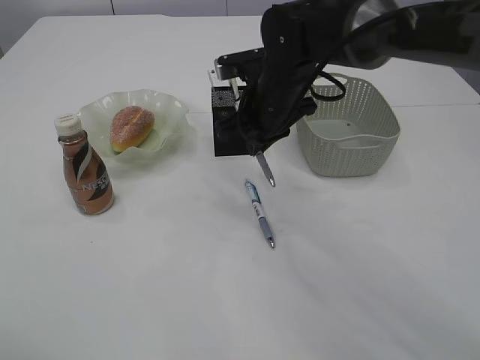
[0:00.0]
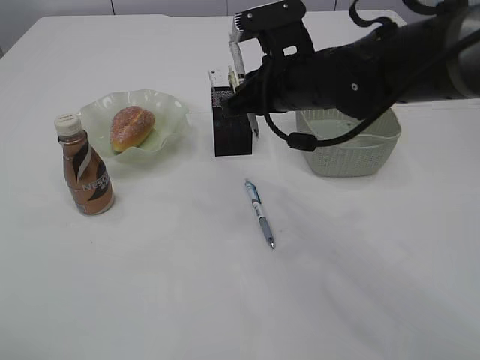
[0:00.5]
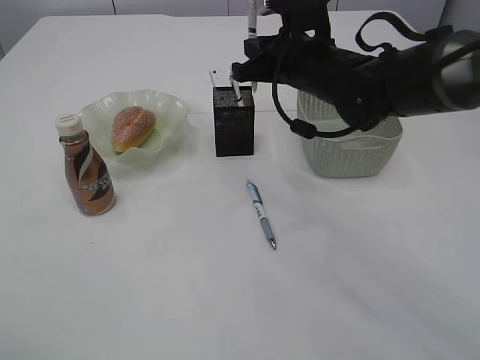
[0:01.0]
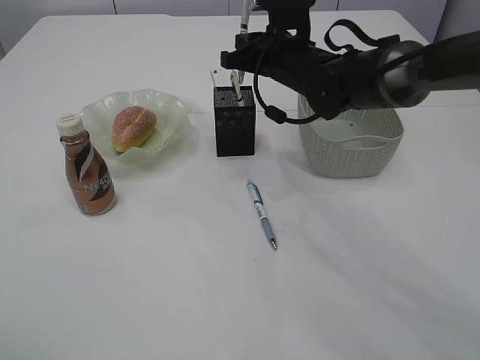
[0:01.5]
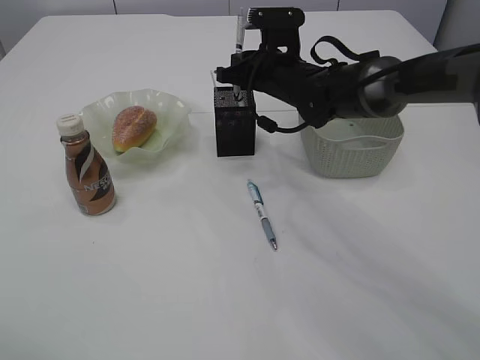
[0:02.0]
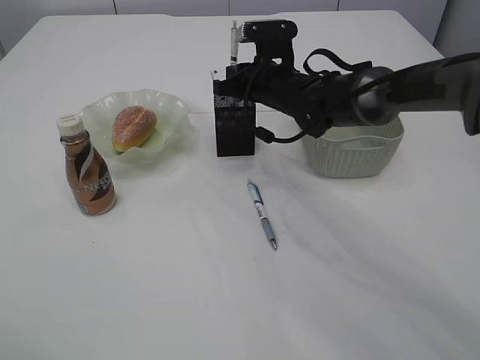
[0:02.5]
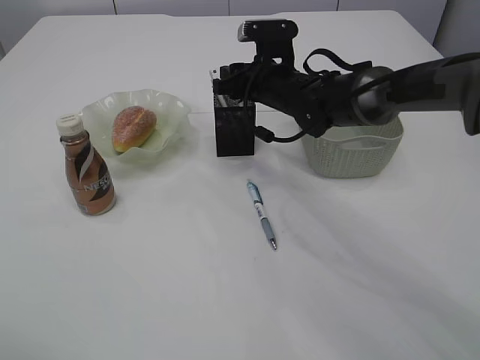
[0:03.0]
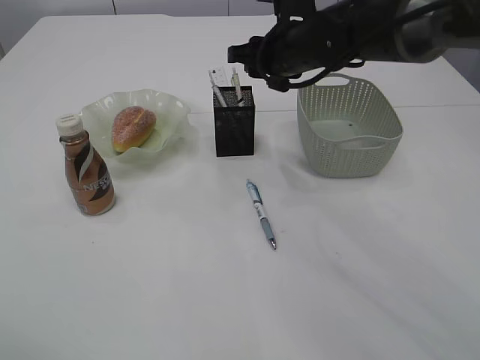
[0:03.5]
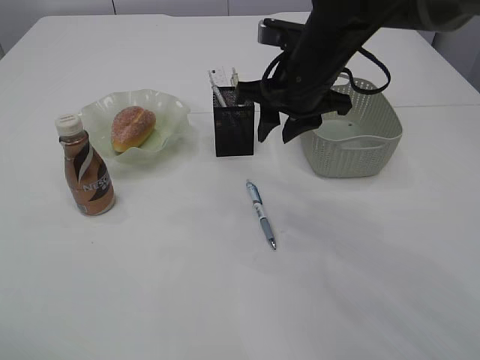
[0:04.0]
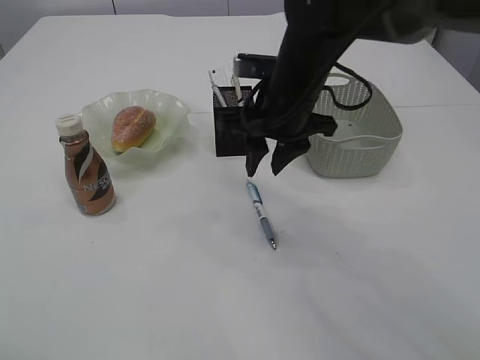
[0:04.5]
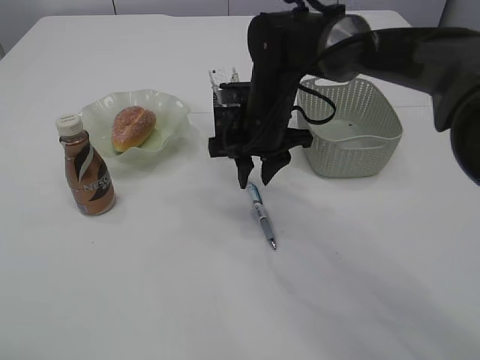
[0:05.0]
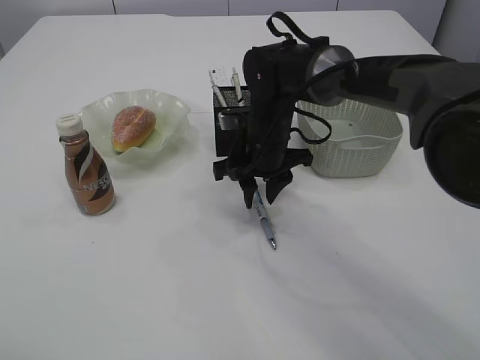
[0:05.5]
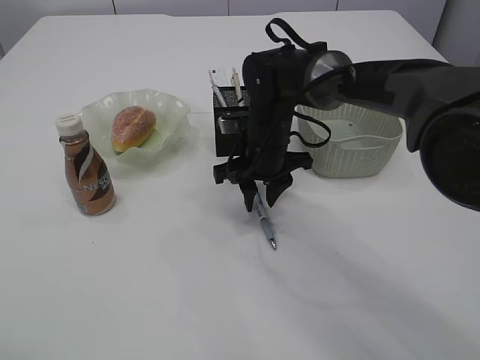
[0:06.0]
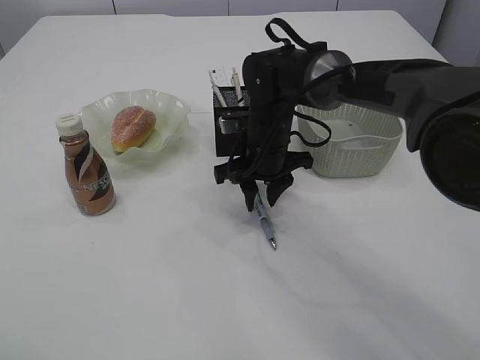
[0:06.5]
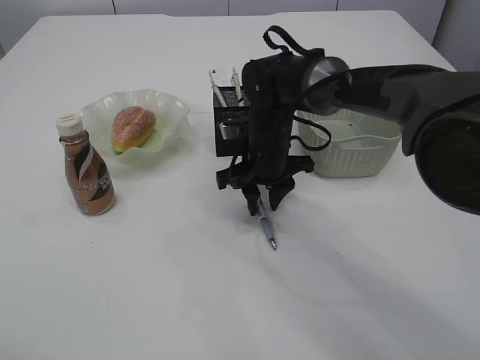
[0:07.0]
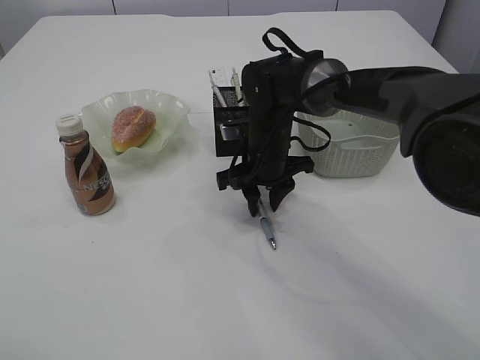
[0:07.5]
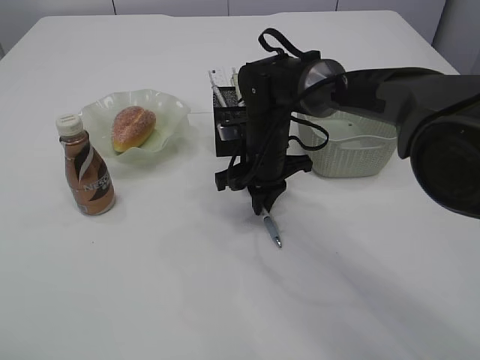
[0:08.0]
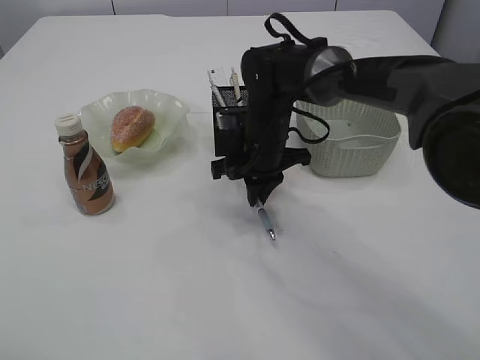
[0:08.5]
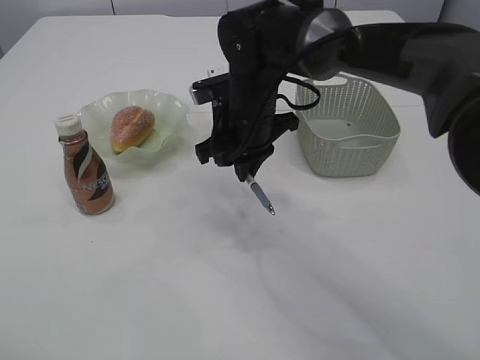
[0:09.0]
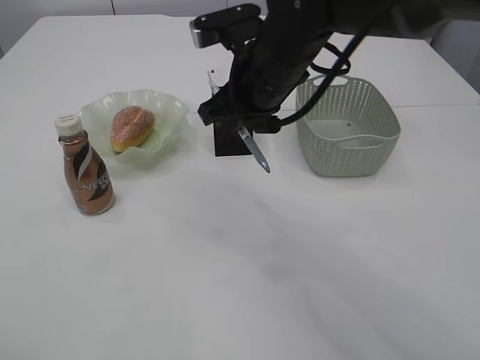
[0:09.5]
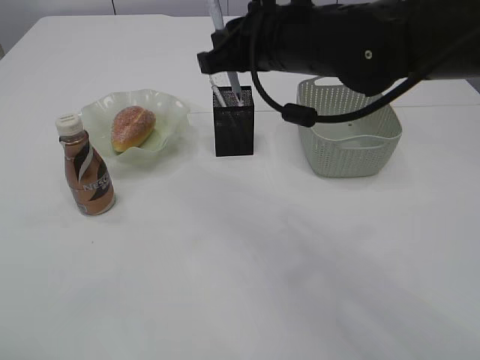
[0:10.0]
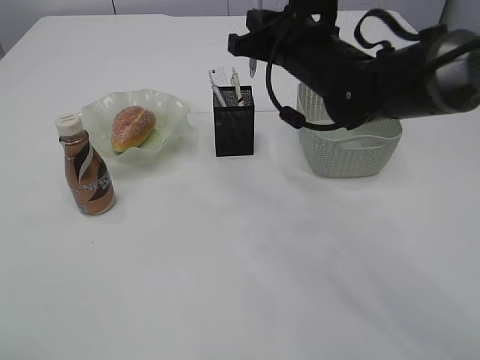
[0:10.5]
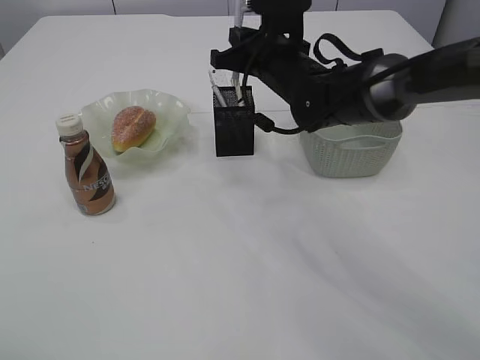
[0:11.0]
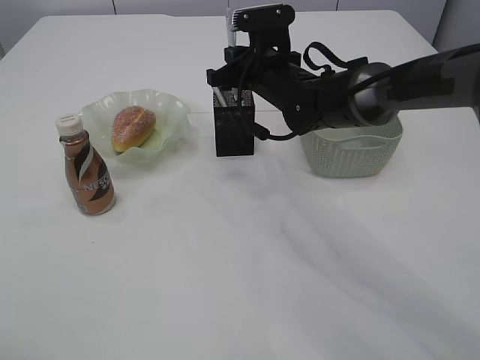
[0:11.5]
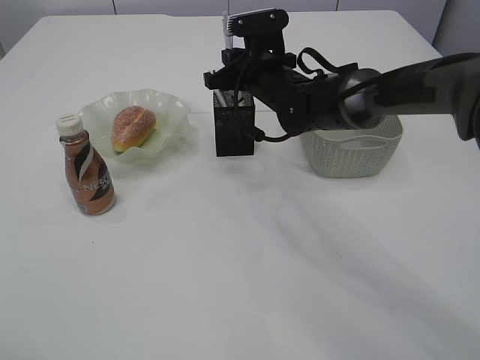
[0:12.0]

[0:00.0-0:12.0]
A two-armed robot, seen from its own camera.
Step, 0:00.0 to 0:03.0: Place the pen into the pen holder.
Step, 0:03.5 to 0:08.5: Pick up the pen with right arm.
0:00.0 to 0:02.0: The right gripper heads forward, covering about 5 cm.
0:02.0 to 0:04.0: The right gripper is displaced backward and upward by about 10 cm, and opens up.
0:04.0 to 0:06.0: The right gripper shifts roughly 10 cm downward.
0:06.0 to 0:08.0: The right gripper closes up.
0:08.0 to 0:10.0: The right gripper moves upward and backward, some 20 cm.
0:10.0 to 0:12.0: The right gripper heads forward and downward, covering approximately 15 cm.

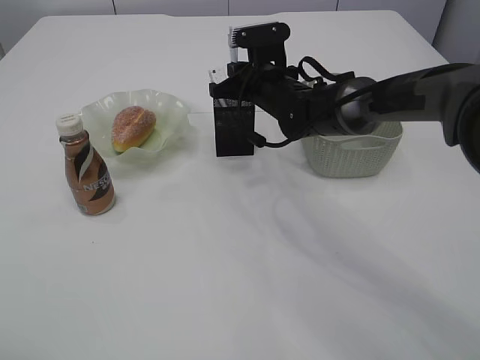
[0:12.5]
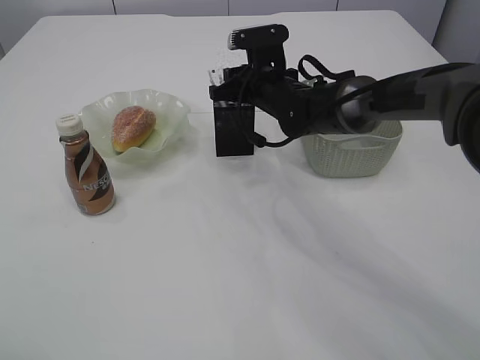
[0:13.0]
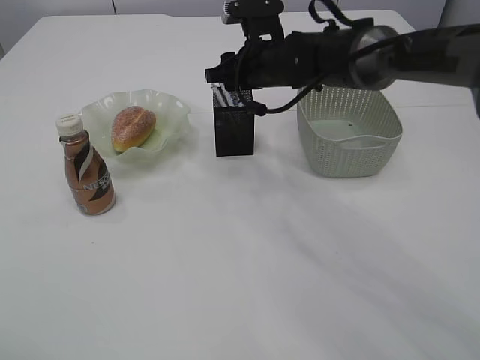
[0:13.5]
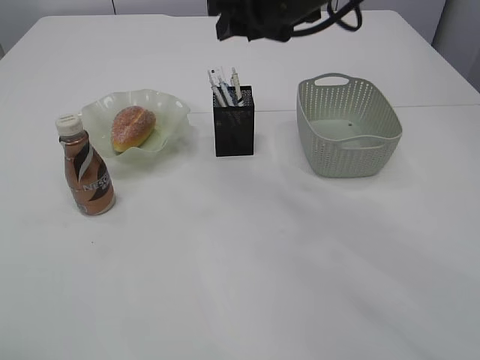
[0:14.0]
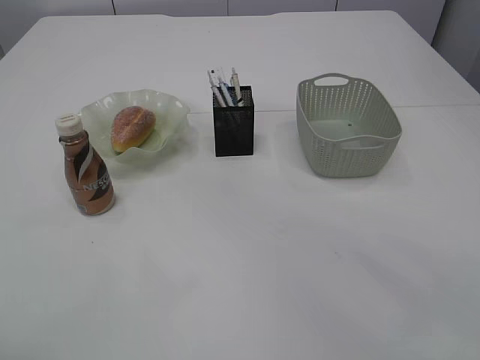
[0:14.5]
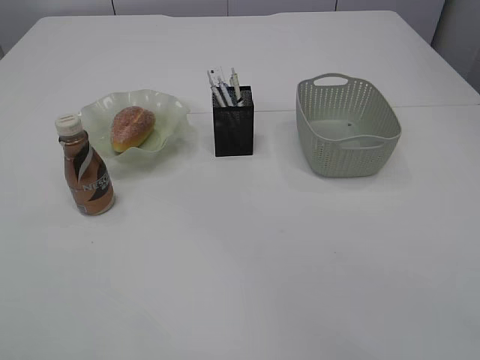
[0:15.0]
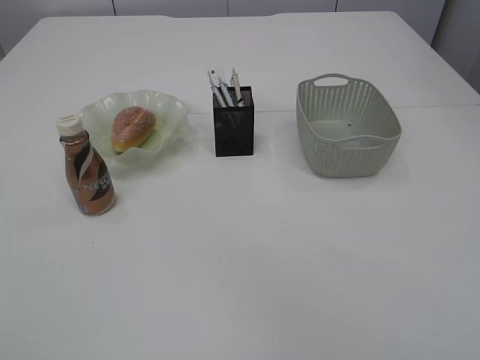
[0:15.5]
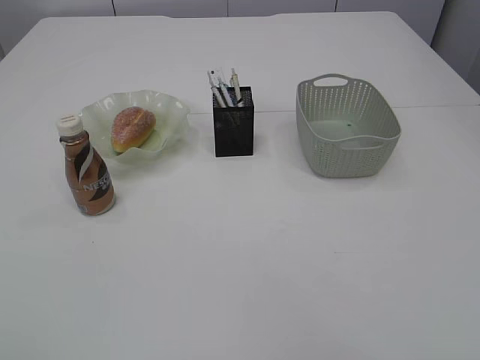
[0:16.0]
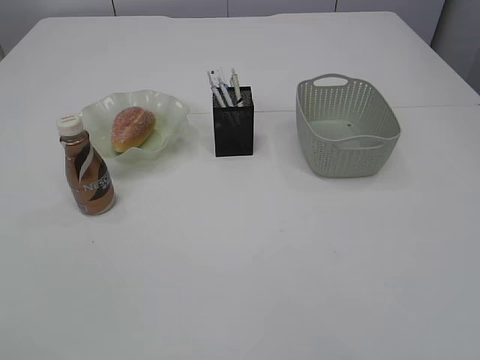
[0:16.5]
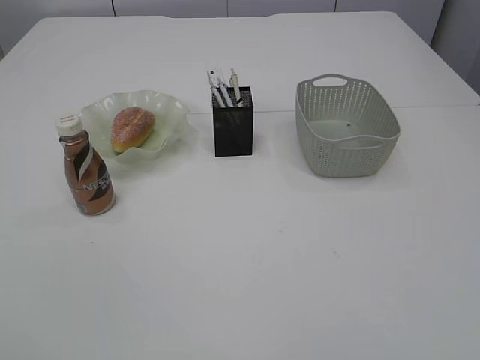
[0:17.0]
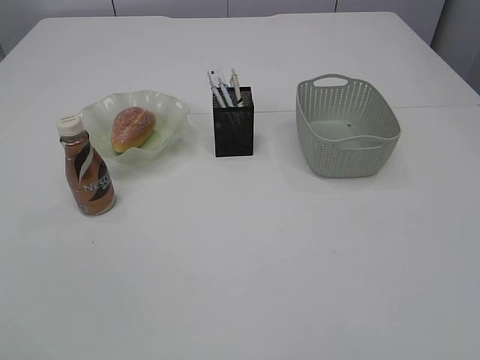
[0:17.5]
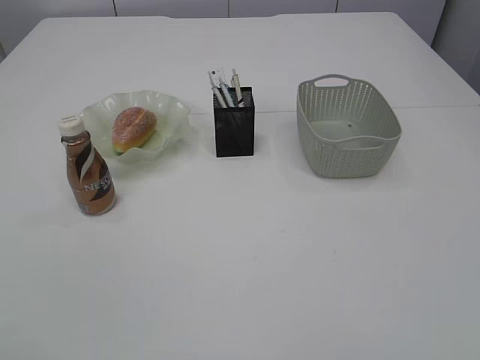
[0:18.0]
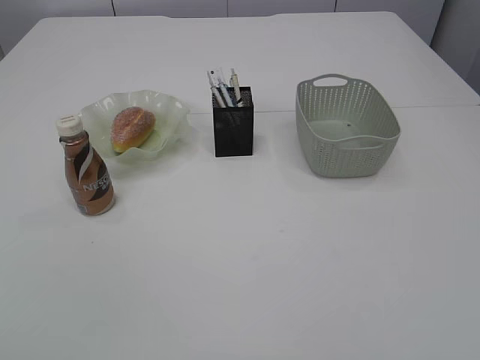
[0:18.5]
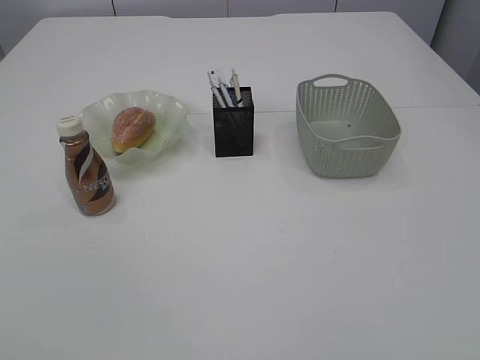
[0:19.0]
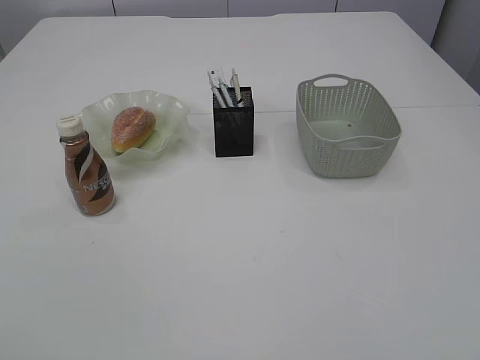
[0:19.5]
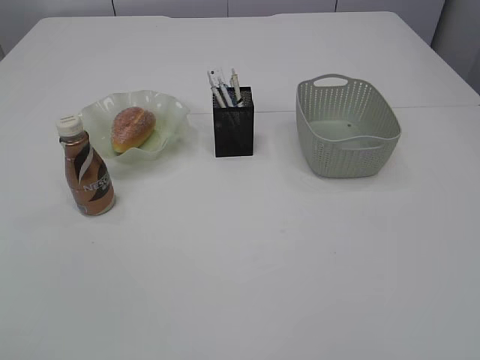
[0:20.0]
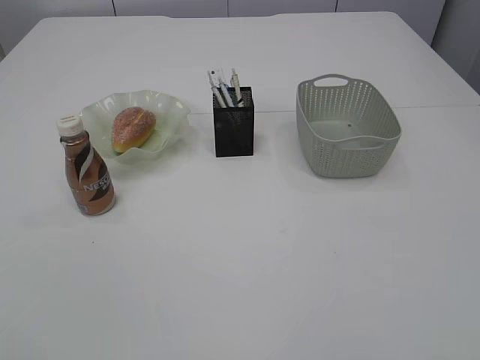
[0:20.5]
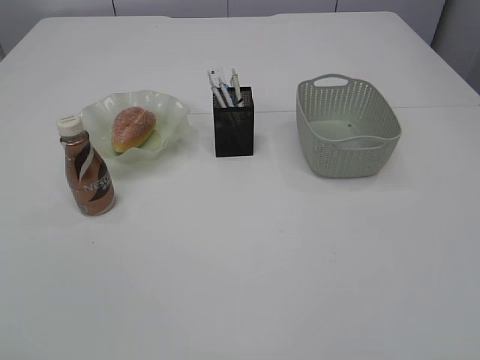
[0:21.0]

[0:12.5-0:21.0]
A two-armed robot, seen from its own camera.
0:12.5 to 0:14.5: The right gripper heads upward and backward, covering some 30 cm, and opens up. The left gripper opens.

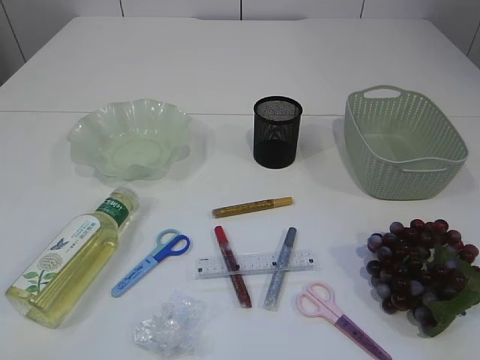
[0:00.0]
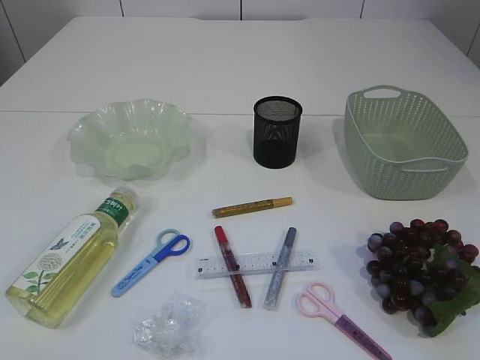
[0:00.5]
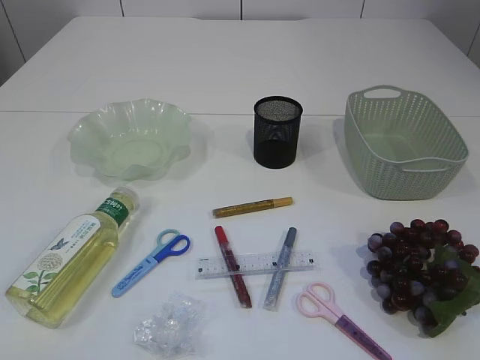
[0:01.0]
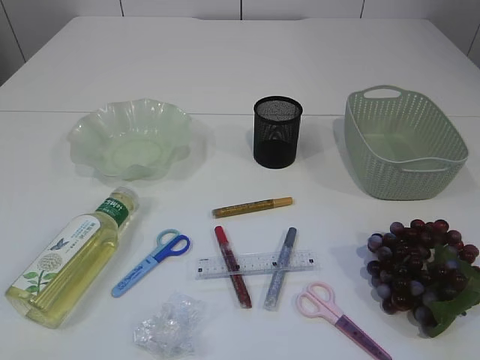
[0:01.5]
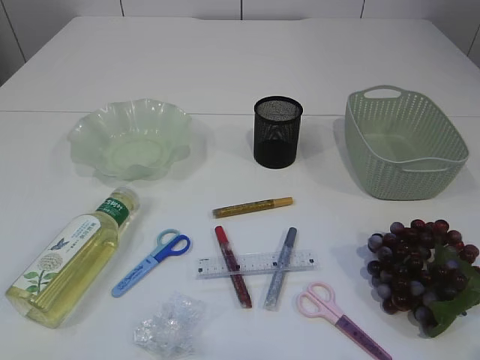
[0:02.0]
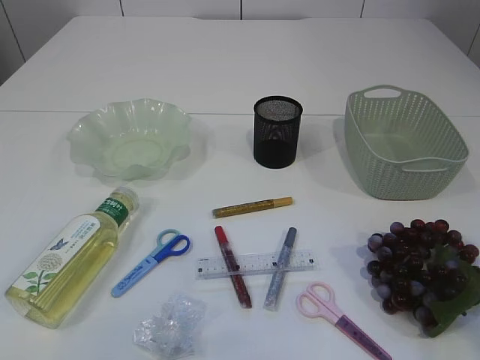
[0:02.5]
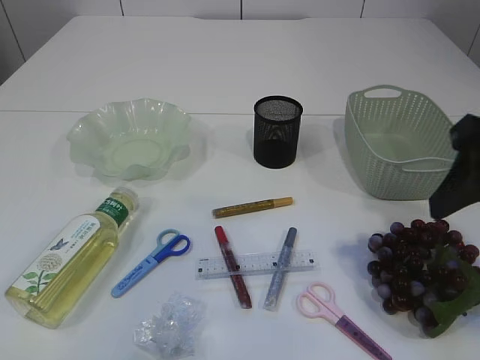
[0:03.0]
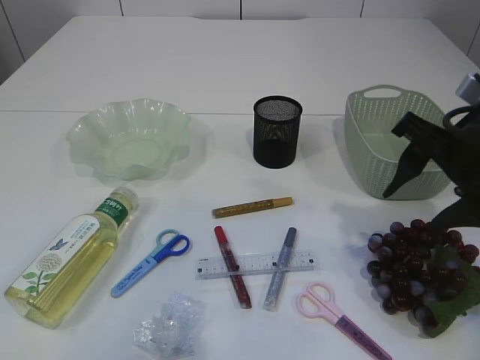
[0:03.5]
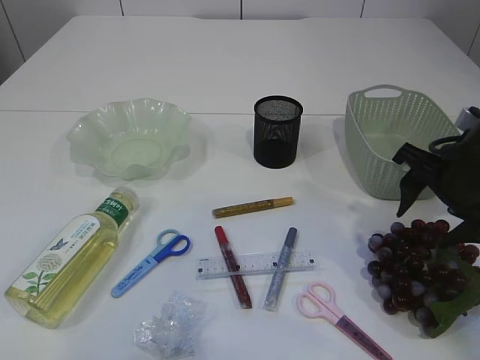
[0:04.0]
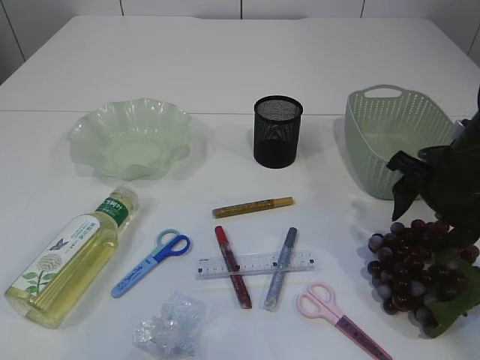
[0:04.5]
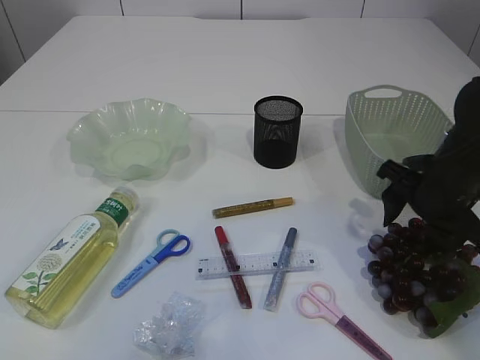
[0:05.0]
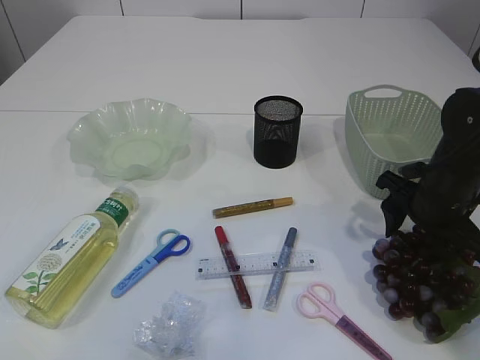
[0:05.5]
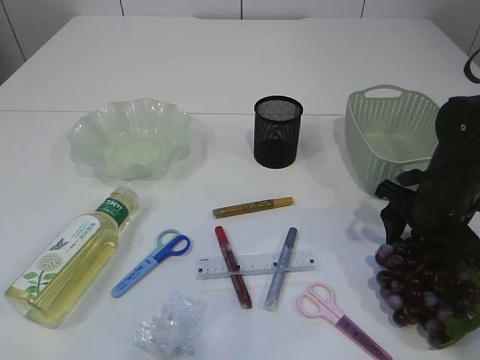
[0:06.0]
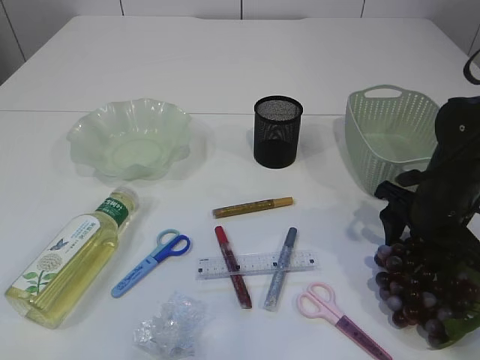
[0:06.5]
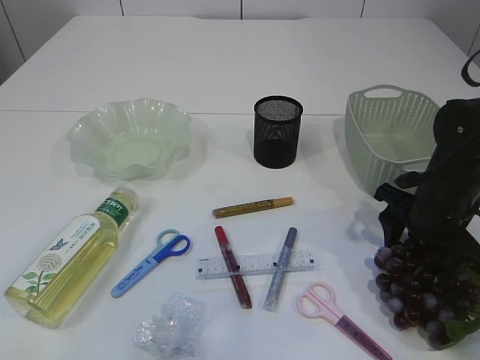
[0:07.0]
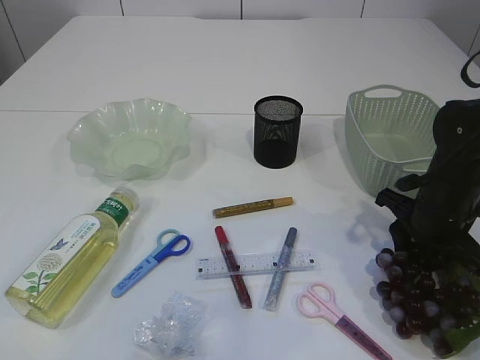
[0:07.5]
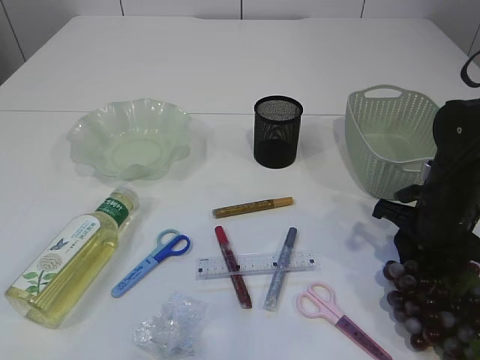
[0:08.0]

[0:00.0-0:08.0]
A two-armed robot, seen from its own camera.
0:02.0 to 0:04.0: The right gripper is displaced forward by about 30 cm, and opens its fingers.
0:04.0 to 0:06.0: The right gripper goes some 5 cm downward.
0:06.0 to 0:08.0: The right gripper closes its fingers.
